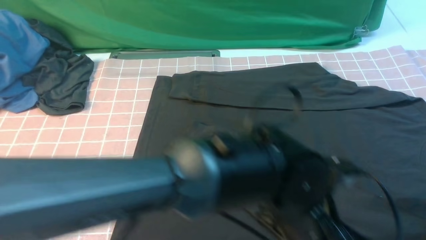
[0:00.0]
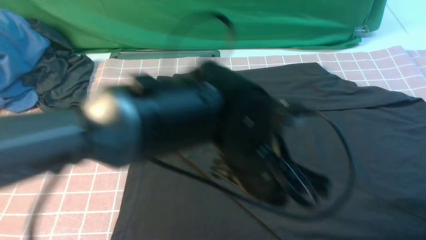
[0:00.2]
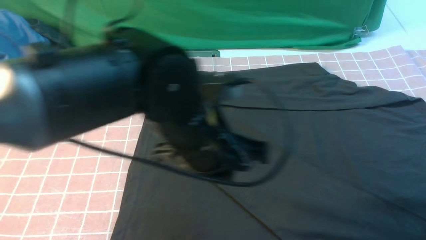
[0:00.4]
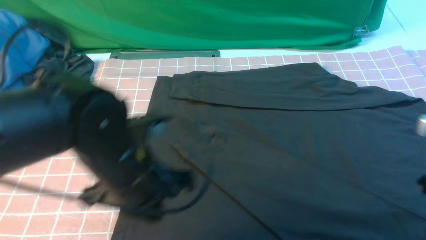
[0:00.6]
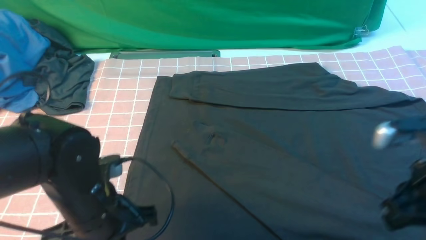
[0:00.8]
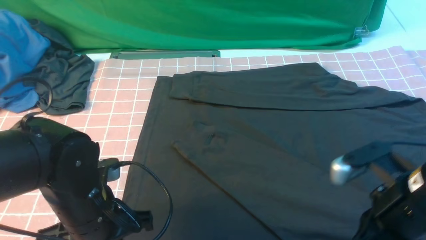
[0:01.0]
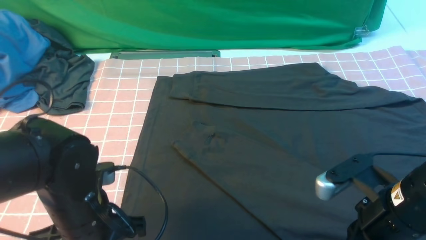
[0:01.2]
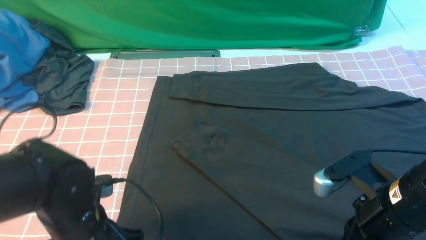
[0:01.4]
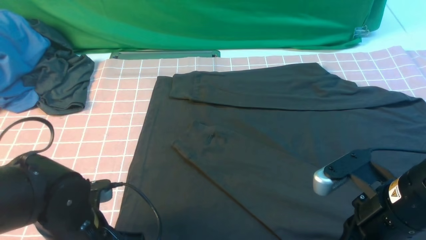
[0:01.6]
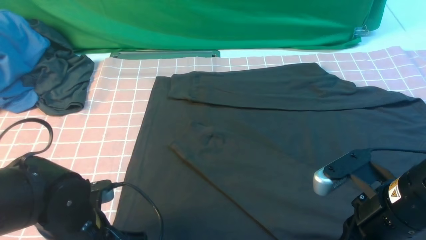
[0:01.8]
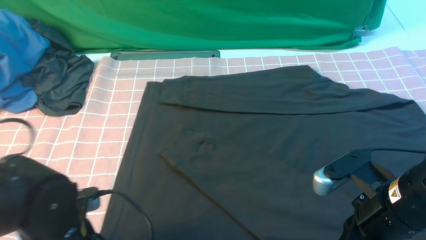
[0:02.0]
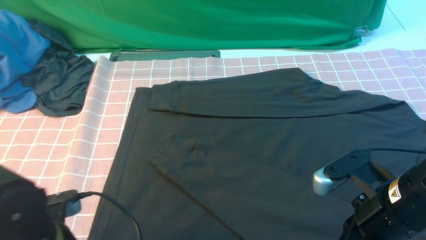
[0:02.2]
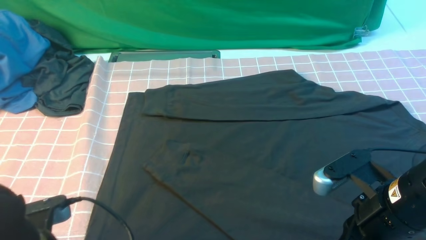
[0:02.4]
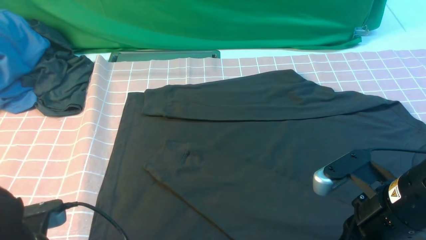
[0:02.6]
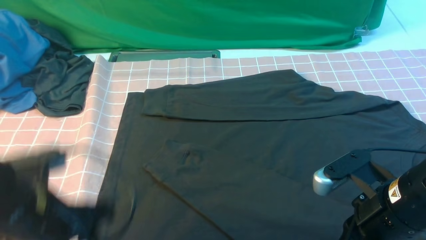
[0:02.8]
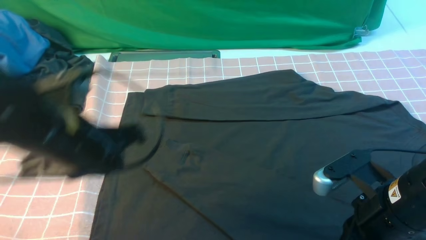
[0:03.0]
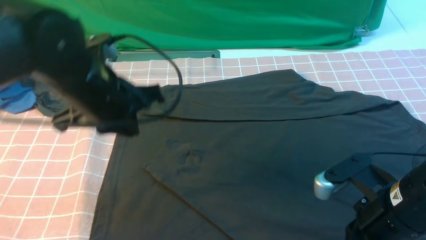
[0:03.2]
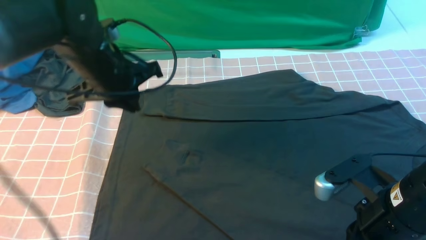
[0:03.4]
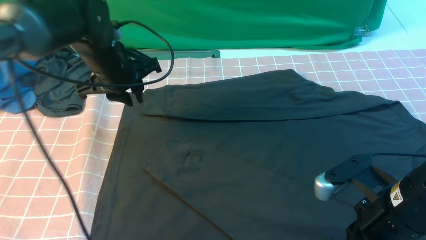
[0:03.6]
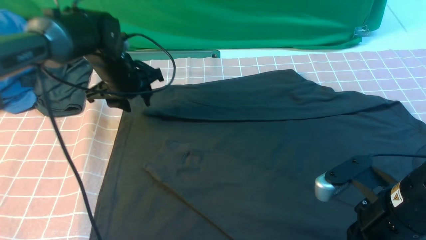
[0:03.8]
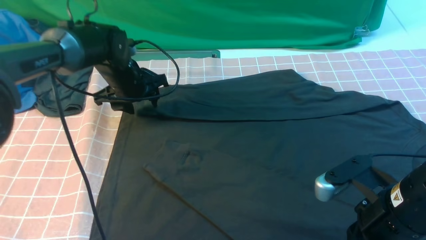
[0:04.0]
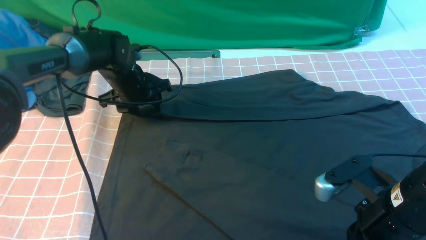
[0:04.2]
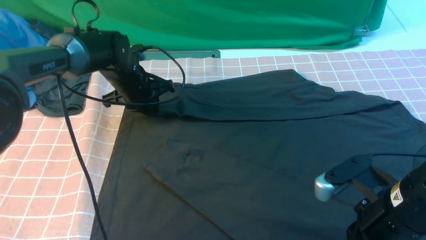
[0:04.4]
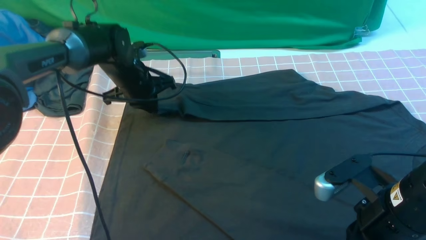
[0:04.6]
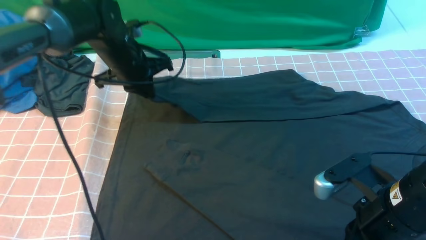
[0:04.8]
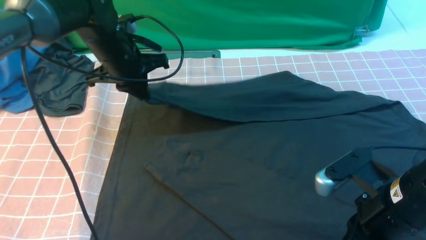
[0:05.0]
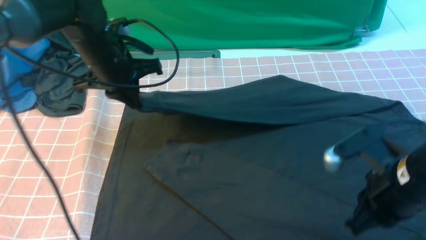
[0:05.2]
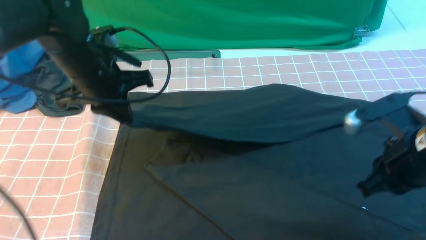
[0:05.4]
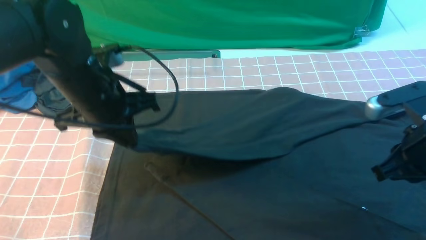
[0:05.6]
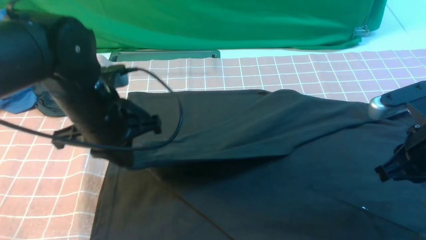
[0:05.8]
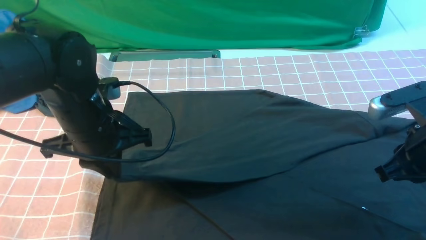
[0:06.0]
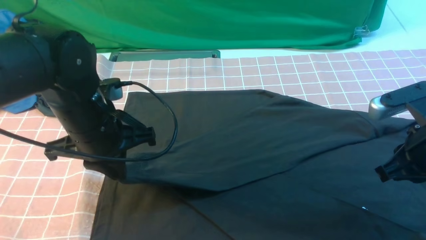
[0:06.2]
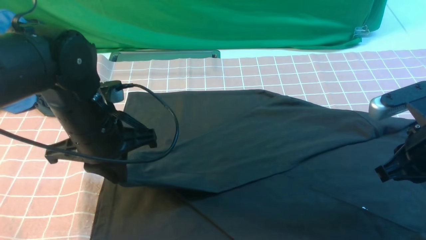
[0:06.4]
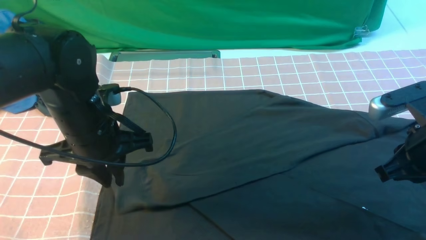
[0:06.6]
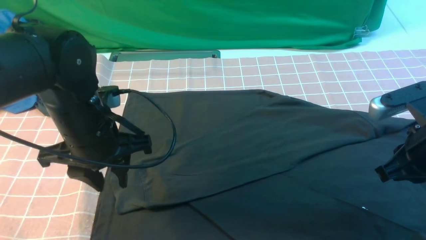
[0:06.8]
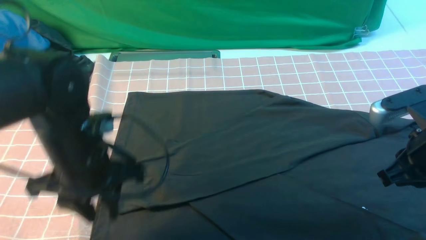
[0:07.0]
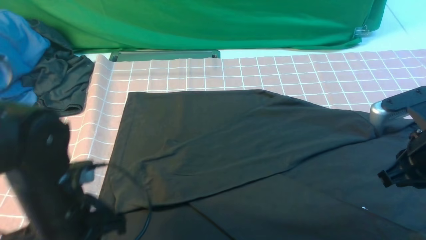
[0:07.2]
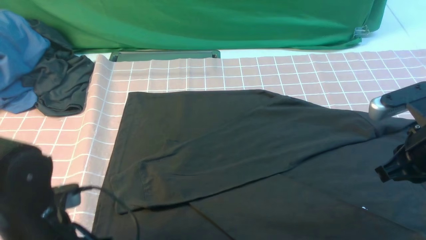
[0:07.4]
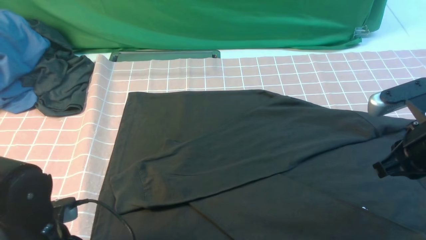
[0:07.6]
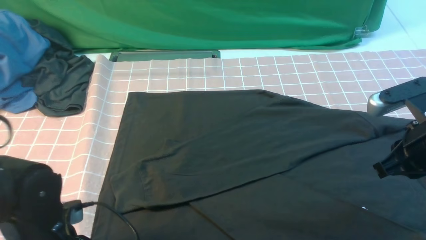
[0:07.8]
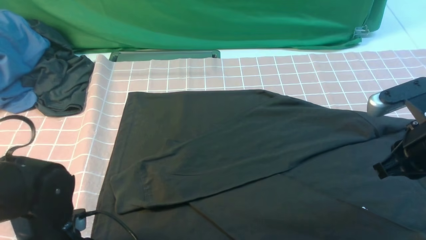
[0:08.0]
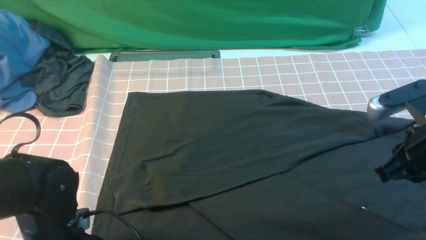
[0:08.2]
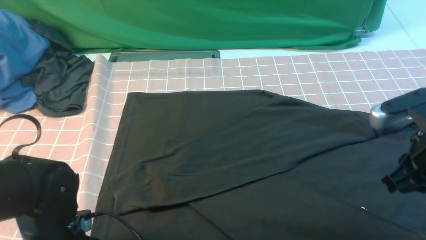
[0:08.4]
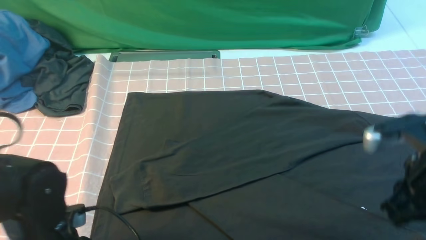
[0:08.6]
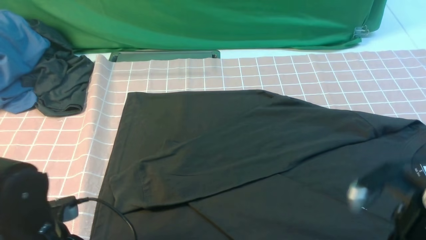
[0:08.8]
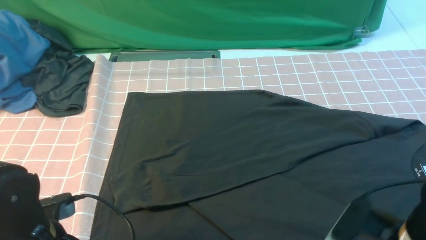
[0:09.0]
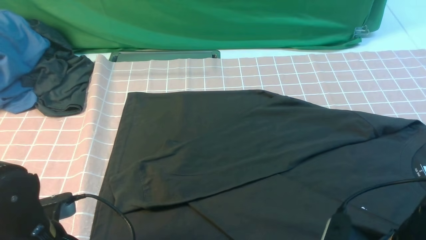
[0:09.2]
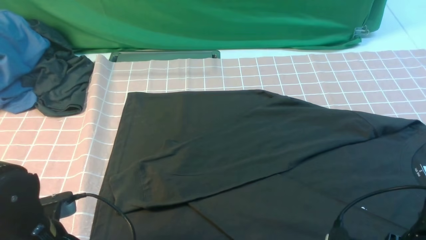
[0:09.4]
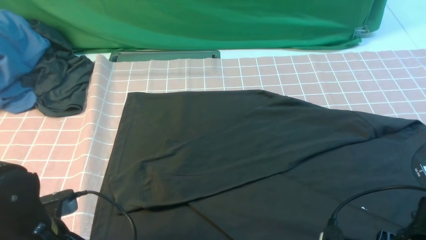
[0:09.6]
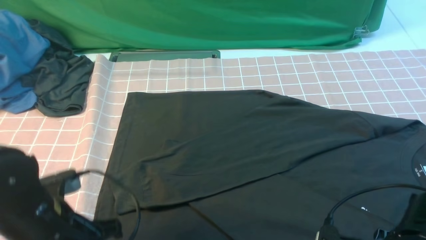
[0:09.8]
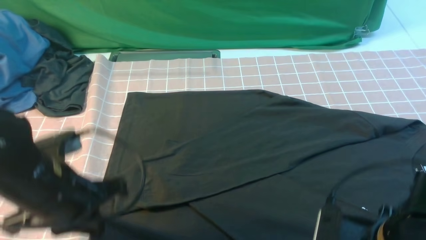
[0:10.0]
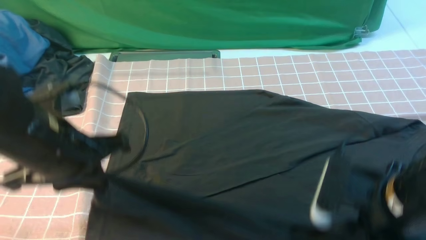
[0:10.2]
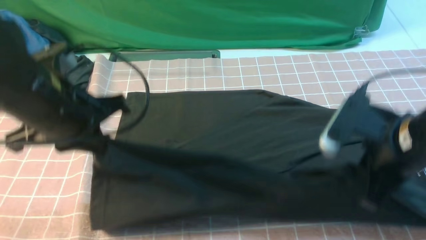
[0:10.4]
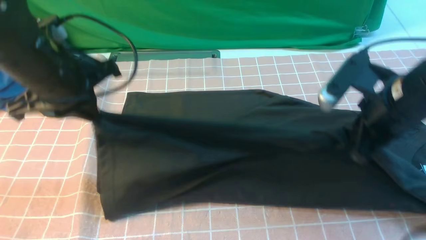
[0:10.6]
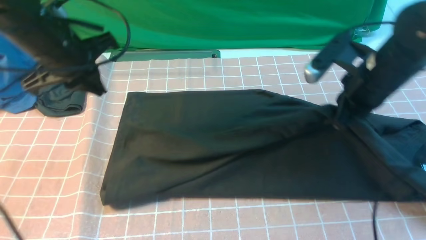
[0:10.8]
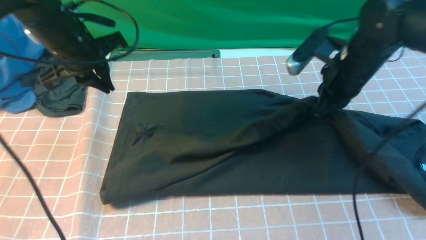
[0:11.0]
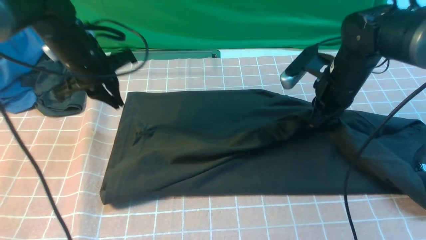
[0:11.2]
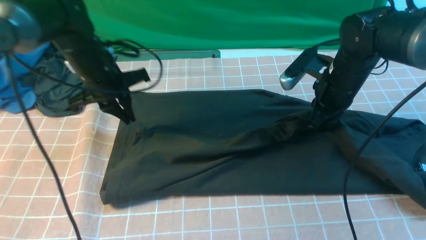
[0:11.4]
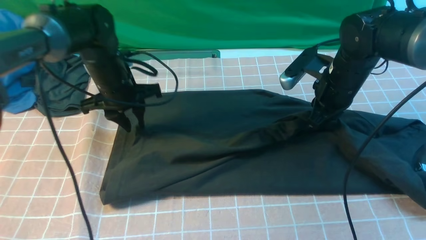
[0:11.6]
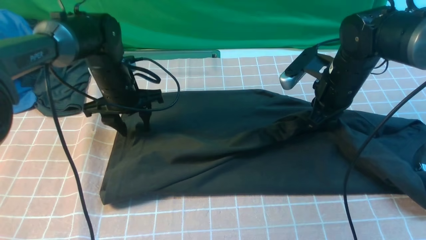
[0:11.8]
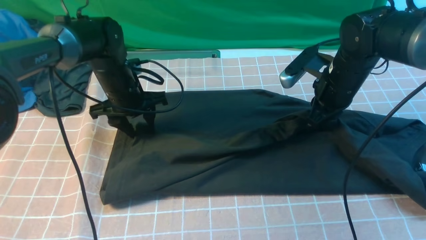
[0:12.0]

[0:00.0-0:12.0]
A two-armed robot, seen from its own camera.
Step, 0:00.0 to 0:04.6: use the left arm to clamp the cuff farthest from it.
Step, 0:04.8 to 0:06.8: use the left arm to drag and drop the cuff onto the cuff closest to the left arm.
Step, 0:07.0 to 0:09.8: use both arms simultaneously to clamp the lower edge of the clothing fabric.
0:00.0 to 0:01.6: Both grippers move to the left, about 20 cm. The right gripper closes its fingers. Meanwhile the left gripper opens.
0:01.6 to 0:03.0: The left gripper is displaced upward and forward by some 15 cm, and closes up.
0:03.0 to 0:04.4: The left gripper shifts about 25 cm forward and downward, and opens, then closes once more.
0:04.4 to 0:06.0: The left gripper moves backward and upward, approximately 20 cm, and closes, while the right gripper heads to the right and forward, covering roughly 10 cm.
0:06.0 to 0:07.6: The left gripper travels backward and downward by roughly 15 cm, and opens its fingers.
0:07.6 to 0:09.0: The right gripper is displaced backward, downward and to the left by approximately 15 cm, and opens up. Meanwhile the left gripper closes up.
0:09.0 to 0:10.4: The left gripper heads upward and forward, covering approximately 15 cm. The right gripper moves forward and upward, approximately 10 cm, and closes up.
0:10.4 to 0:12.0: The right gripper shifts some 15 cm forward, while the left gripper is displaced forward and downward by roughly 20 cm, and opens its fingers.

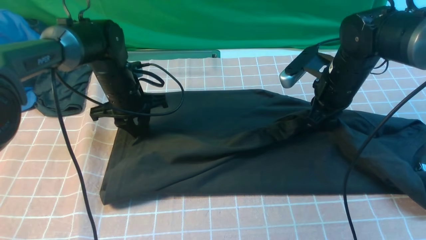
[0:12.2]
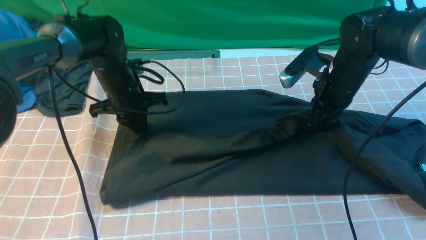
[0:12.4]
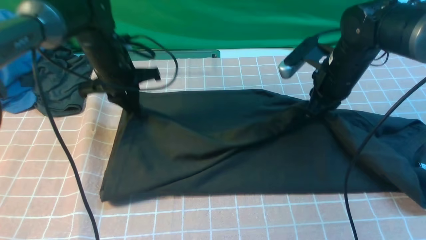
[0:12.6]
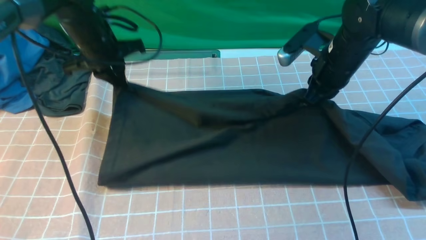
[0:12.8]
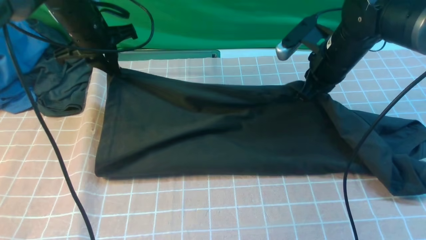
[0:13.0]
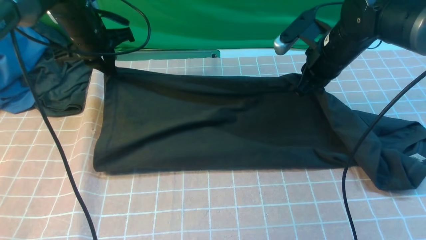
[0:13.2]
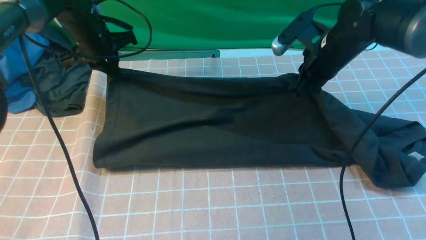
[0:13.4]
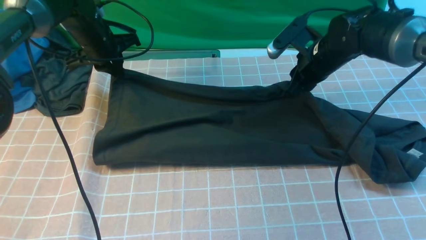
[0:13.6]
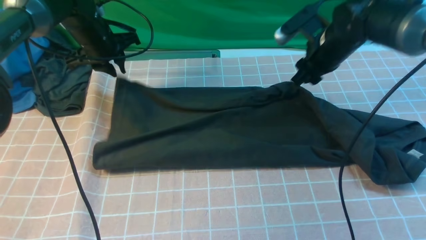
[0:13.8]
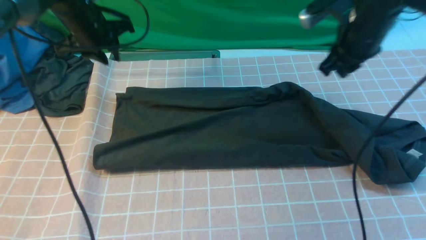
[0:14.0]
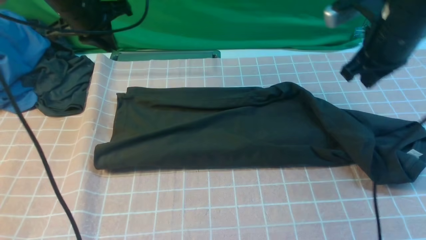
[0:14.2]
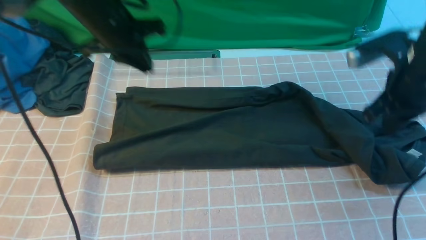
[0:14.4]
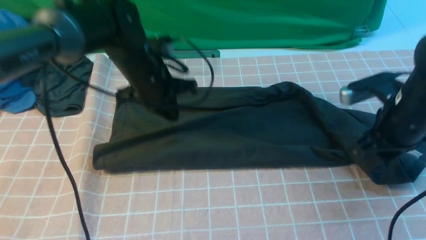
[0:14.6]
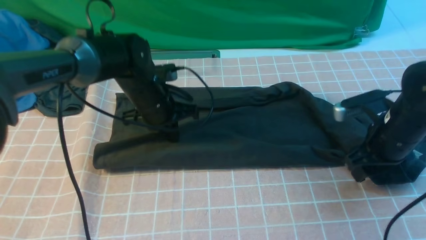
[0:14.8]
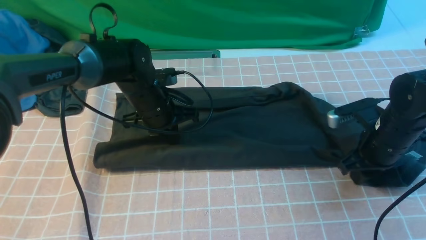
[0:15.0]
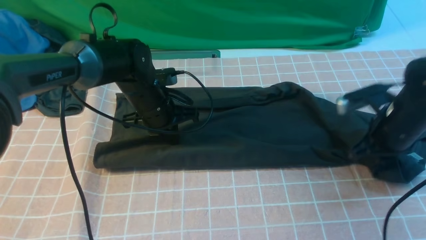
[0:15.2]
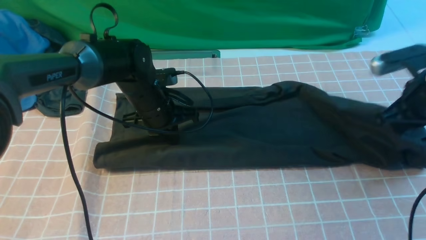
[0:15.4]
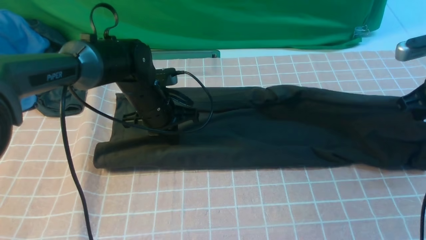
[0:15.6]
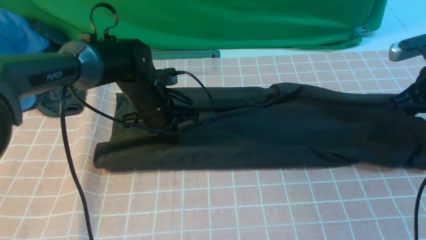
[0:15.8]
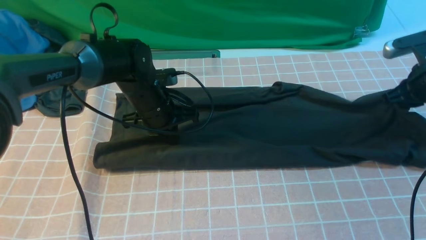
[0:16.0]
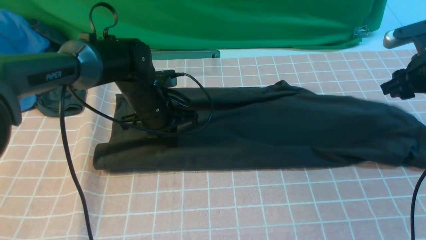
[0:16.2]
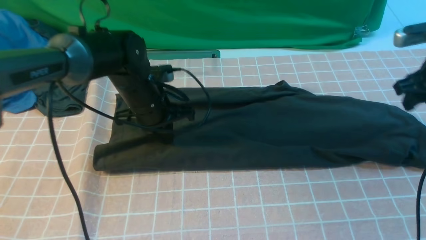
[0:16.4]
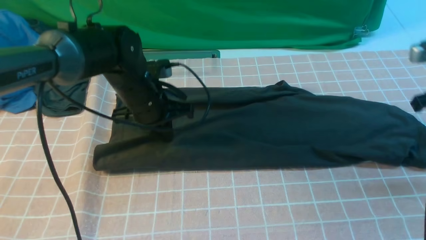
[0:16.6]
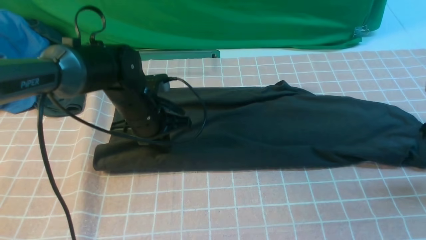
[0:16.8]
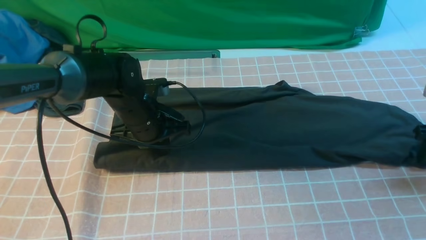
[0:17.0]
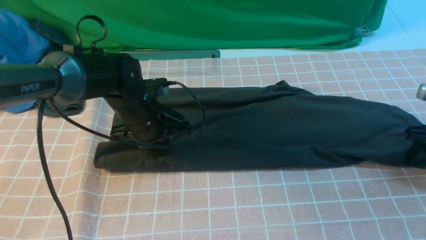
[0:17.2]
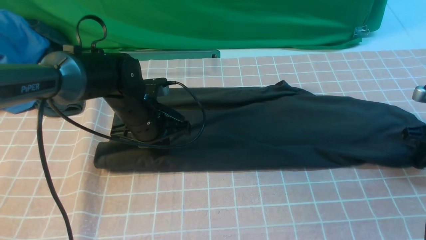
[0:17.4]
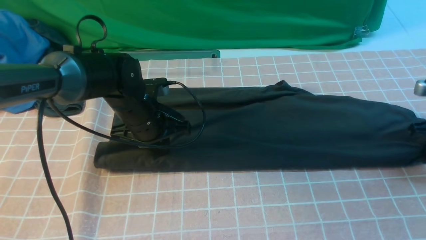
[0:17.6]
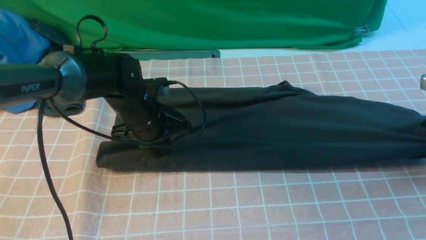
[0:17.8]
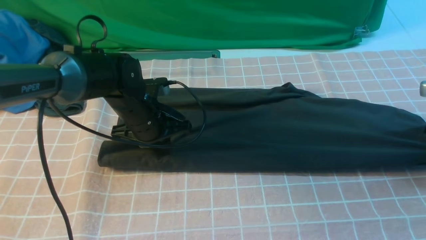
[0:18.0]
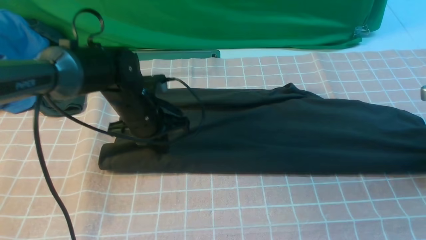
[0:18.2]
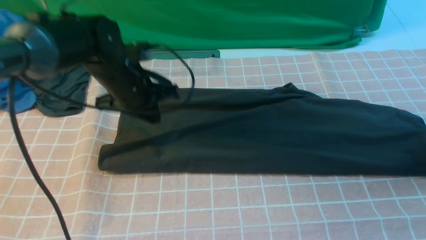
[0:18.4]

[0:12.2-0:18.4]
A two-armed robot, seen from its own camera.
0:12.2 to 0:13.8: The left gripper travels upward, forward and to the left by about 10 cm; the right gripper ends up some 5 cm from where it was, and opens its fingers.
0:13.8 to 0:15.4: The left gripper travels to the right, backward and downward by about 15 cm, and closes its fingers. The right gripper travels to the right and backward by approximately 15 cm, and closes its fingers.
0:15.4 to 0:16.8: The right gripper is displaced to the right by some 5 cm, and opens.
0:16.8 to 0:18.4: The left gripper moves some 5 cm. The right gripper changes place by some 5 cm, and closes, then opens again.
